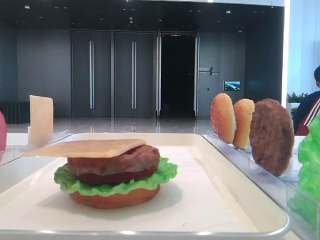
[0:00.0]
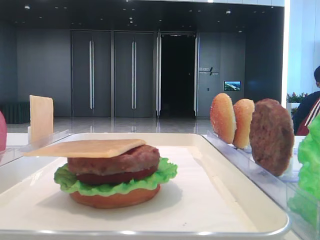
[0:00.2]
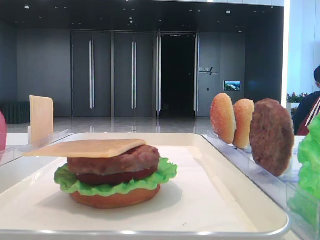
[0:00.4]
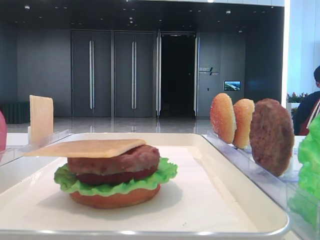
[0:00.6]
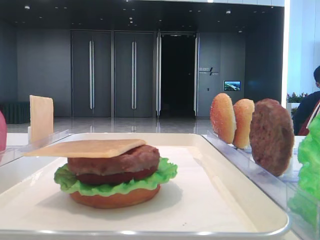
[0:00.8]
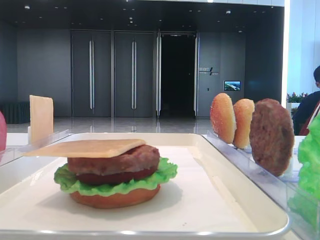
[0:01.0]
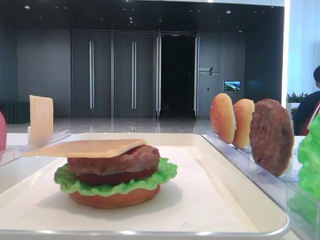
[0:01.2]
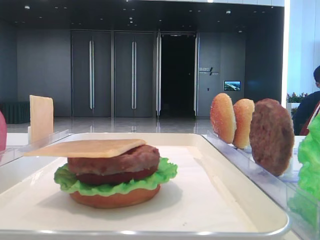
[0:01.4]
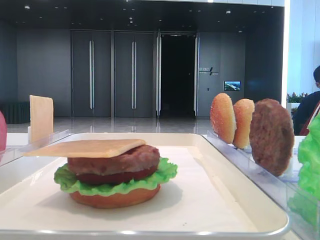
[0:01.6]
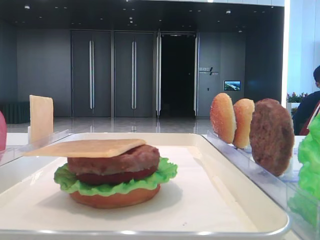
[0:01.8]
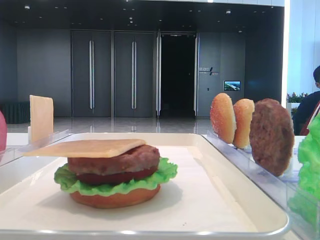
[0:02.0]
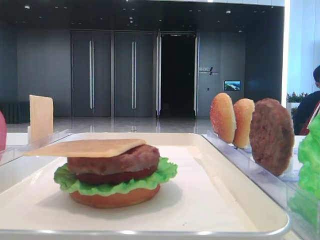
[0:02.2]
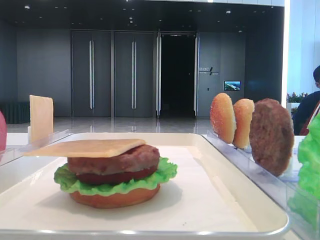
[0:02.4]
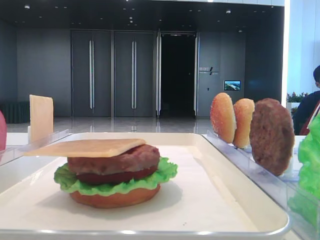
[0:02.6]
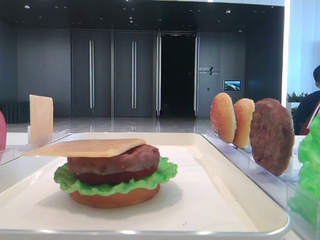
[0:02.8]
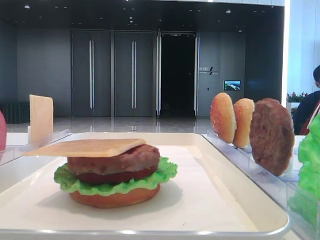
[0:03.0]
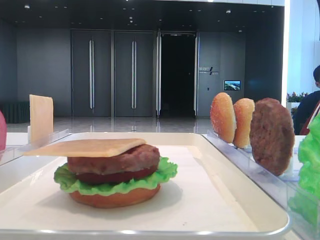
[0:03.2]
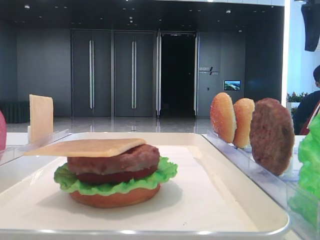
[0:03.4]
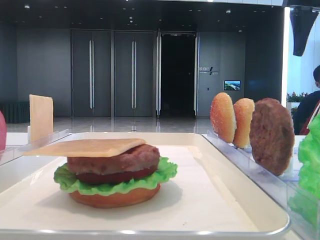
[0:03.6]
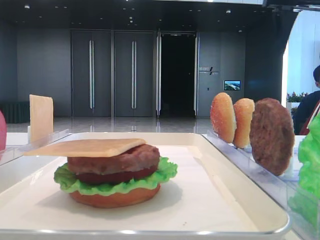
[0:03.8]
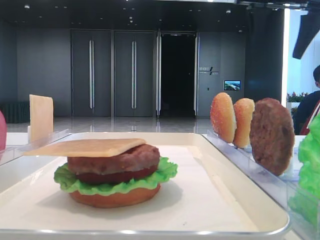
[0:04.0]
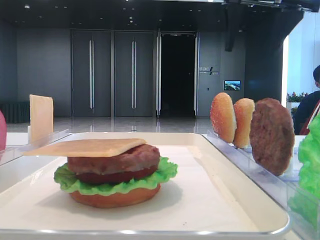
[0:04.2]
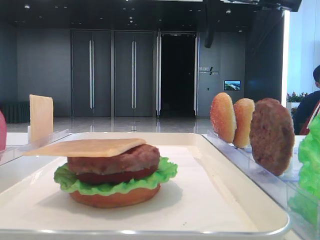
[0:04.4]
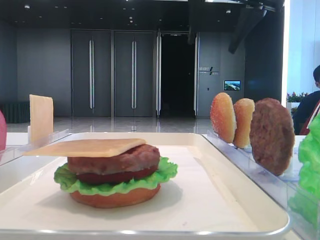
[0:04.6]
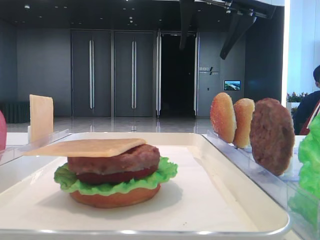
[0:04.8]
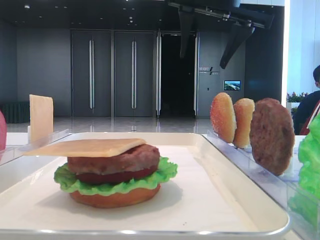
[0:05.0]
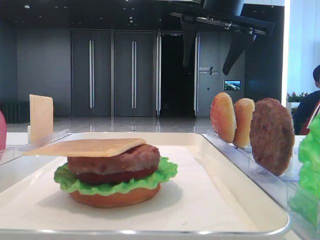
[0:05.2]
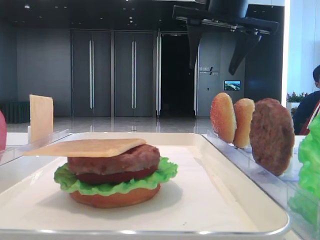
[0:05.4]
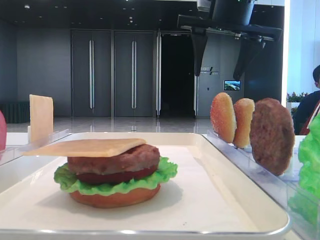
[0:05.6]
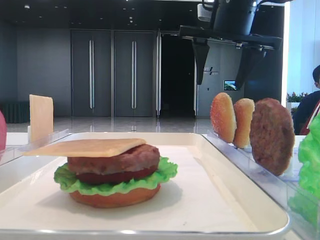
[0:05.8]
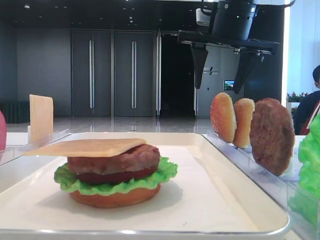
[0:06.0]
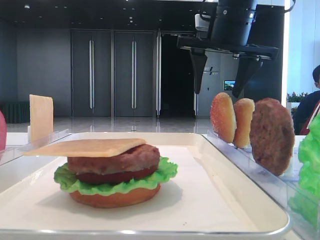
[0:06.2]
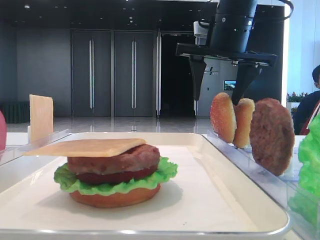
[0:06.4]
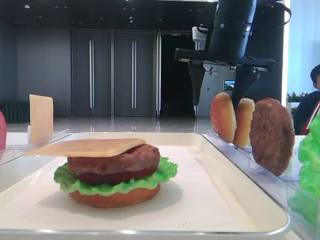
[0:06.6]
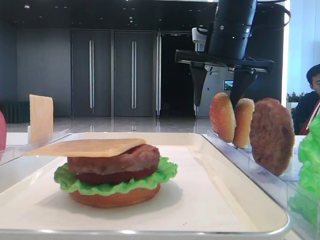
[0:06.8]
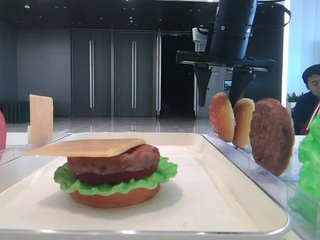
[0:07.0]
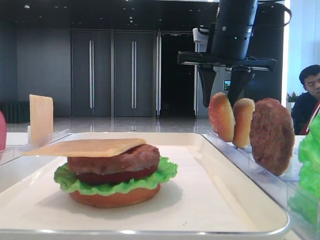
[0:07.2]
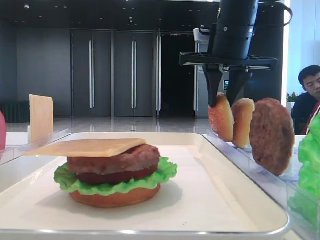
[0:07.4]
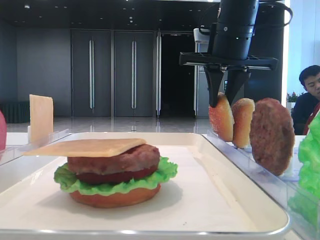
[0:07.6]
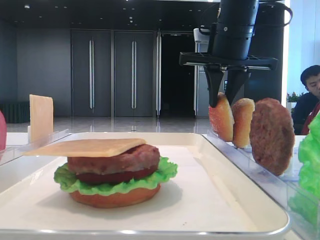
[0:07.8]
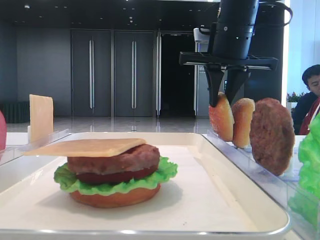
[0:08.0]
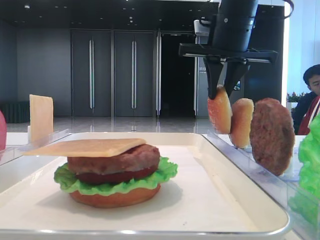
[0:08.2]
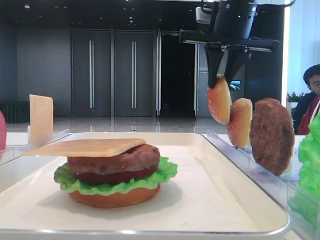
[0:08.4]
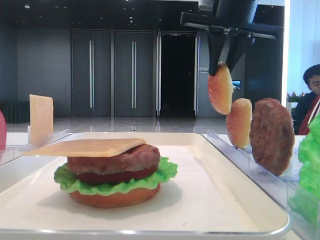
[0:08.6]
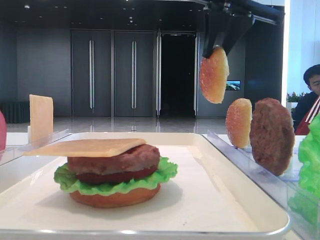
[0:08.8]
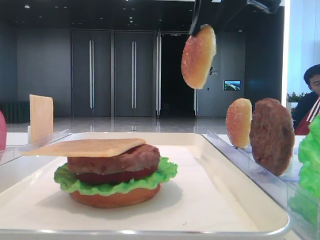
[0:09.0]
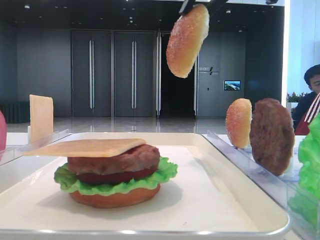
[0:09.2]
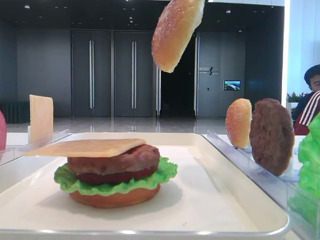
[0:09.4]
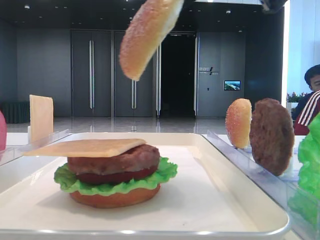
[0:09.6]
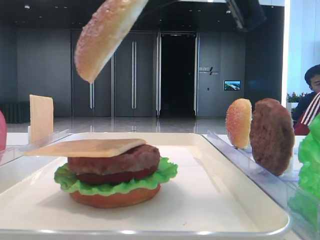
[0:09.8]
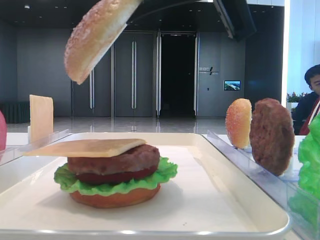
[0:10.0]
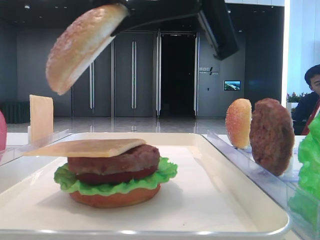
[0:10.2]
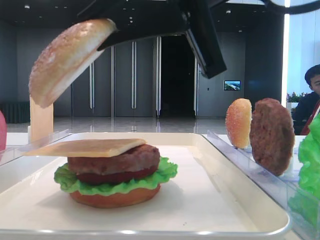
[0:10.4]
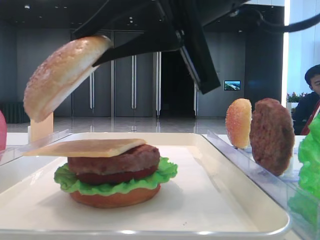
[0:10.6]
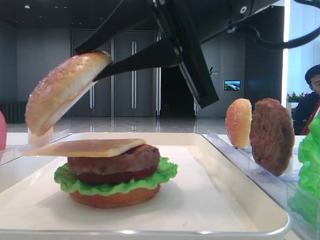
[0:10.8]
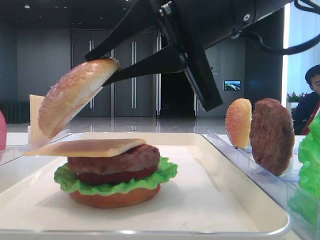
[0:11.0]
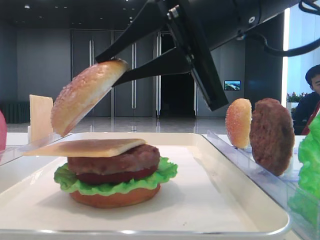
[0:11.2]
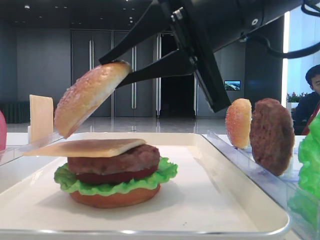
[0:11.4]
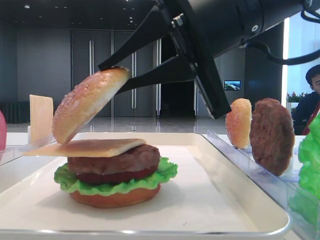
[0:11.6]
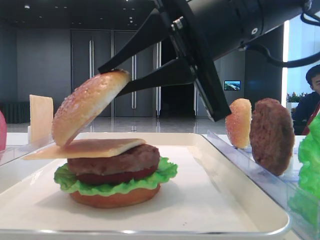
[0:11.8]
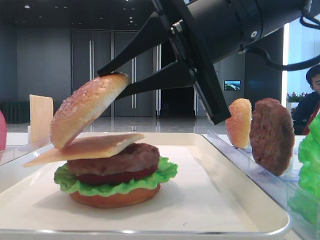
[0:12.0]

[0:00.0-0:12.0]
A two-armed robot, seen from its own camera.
Step, 0:00.0 to 0:07.8: Pick up the top bread slice with the right hand.
0:03.0 to 0:04.4: The right gripper is displaced to the left by approximately 20 cm.
0:04.4 to 0:06.0: The right gripper heads downward, covering roughly 5 cm.
0:06.0 to 0:07.6: The right gripper closes up.
0:07.6 to 0:09.0: The right gripper goes about 10 cm upward and backward.
0:09.0 to 0:10.4: The right gripper heads backward and downward, covering about 15 cm.
0:10.4 to 0:12.0: The grippers stay close to where they were, moving slightly.

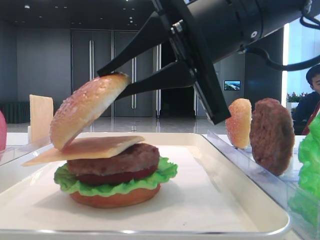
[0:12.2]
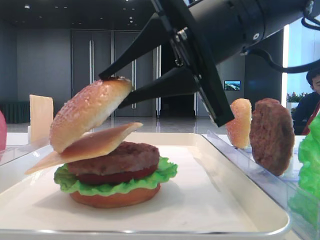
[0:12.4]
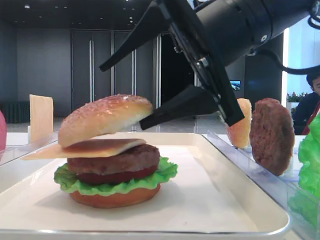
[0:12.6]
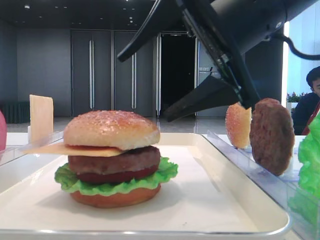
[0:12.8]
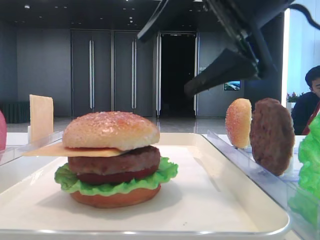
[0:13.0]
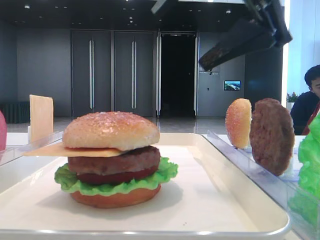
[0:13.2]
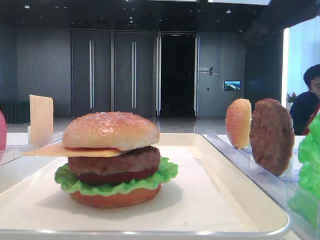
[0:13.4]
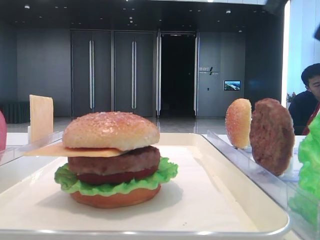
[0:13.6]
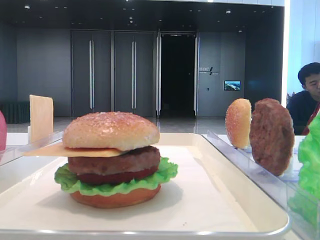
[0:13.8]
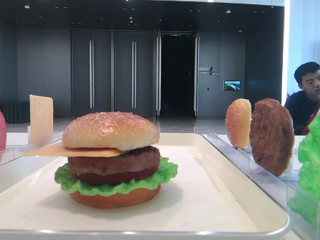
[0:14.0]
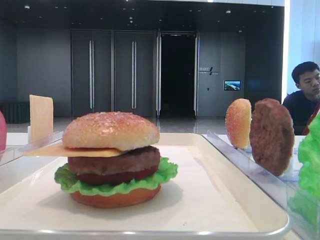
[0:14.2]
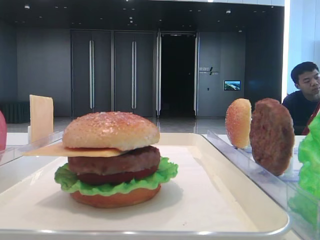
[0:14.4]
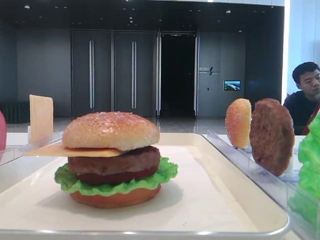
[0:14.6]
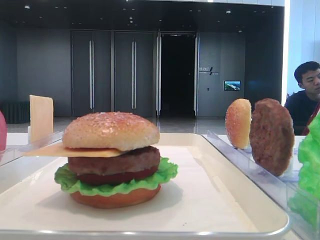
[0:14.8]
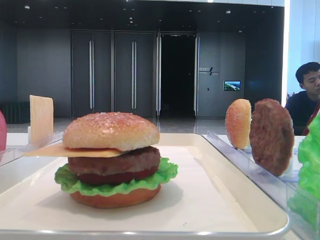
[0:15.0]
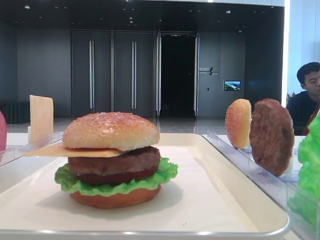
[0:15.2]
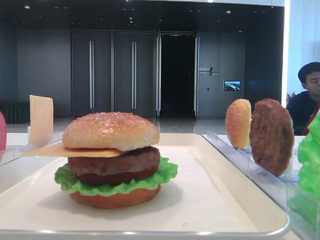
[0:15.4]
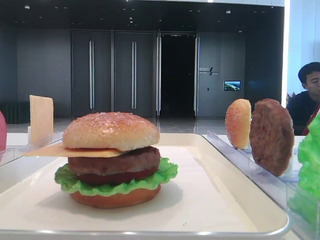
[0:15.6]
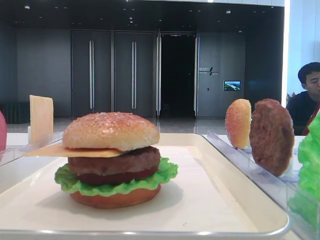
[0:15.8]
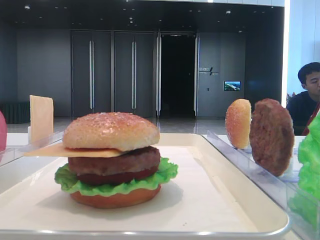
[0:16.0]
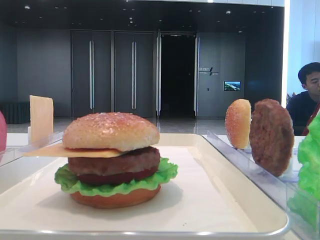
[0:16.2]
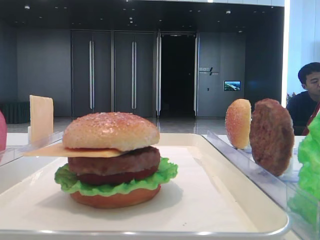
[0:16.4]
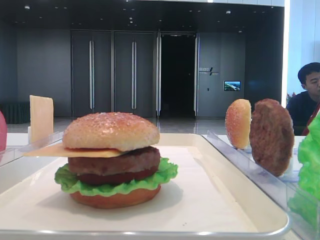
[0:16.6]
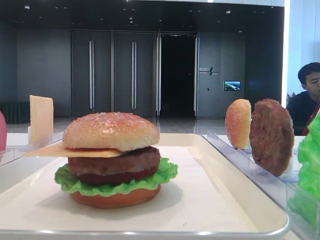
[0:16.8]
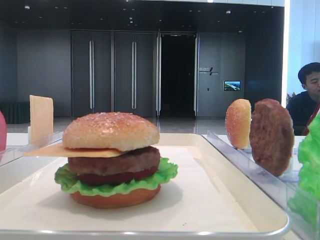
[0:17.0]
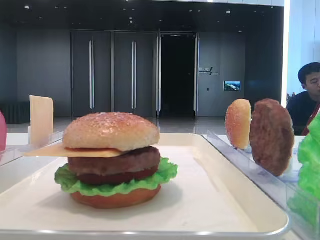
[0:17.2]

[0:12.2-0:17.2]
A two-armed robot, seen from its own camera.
0:12.2 to 0:13.8: The right gripper travels to the right and upward by roughly 20 cm, and opens its fingers.

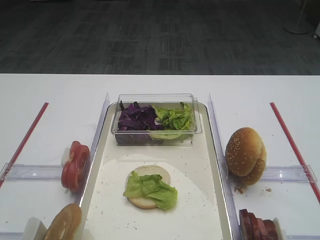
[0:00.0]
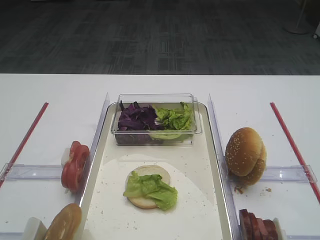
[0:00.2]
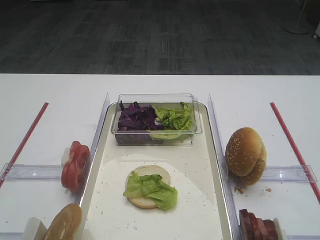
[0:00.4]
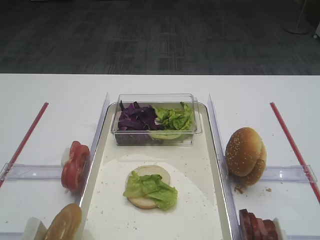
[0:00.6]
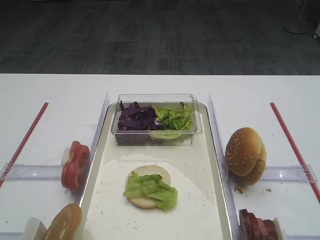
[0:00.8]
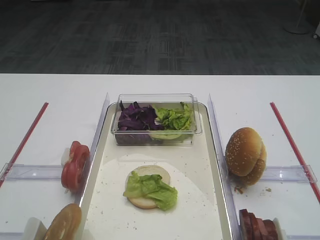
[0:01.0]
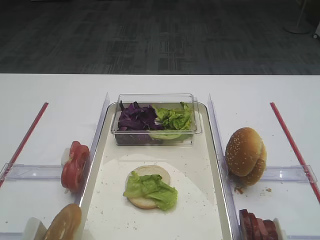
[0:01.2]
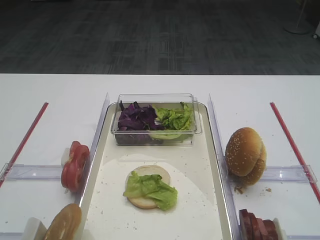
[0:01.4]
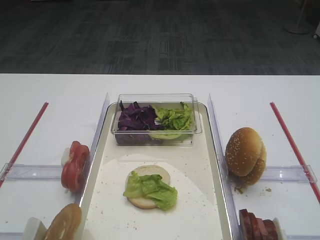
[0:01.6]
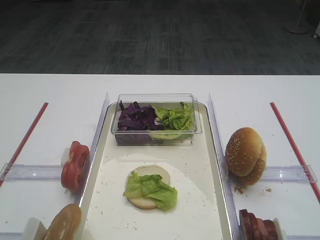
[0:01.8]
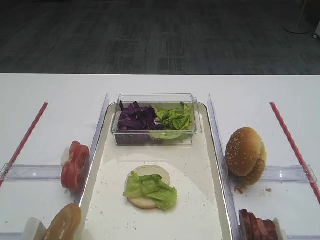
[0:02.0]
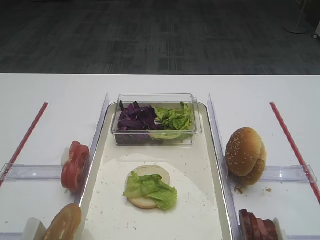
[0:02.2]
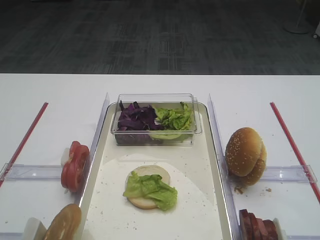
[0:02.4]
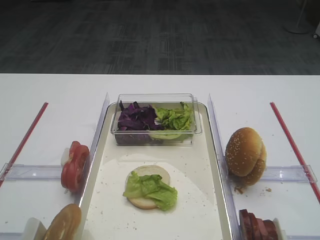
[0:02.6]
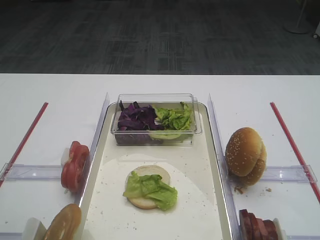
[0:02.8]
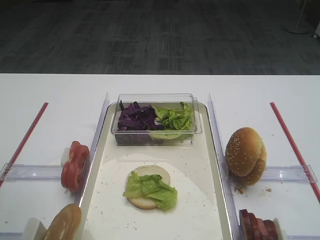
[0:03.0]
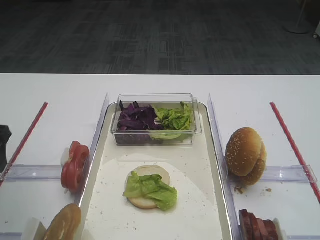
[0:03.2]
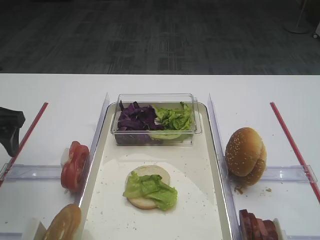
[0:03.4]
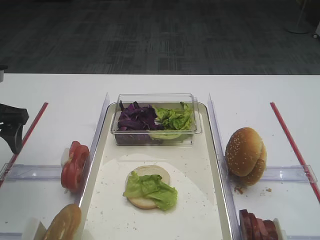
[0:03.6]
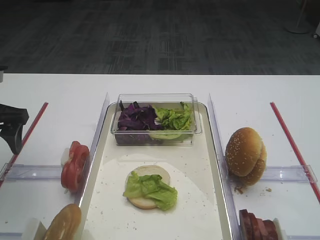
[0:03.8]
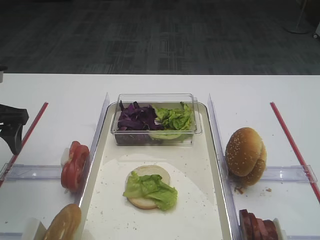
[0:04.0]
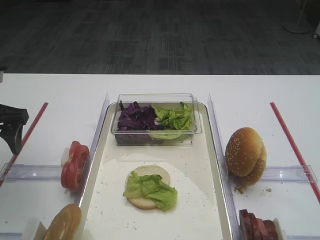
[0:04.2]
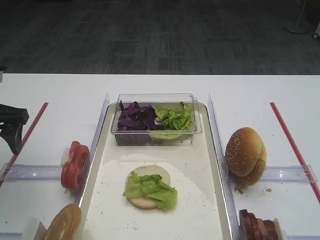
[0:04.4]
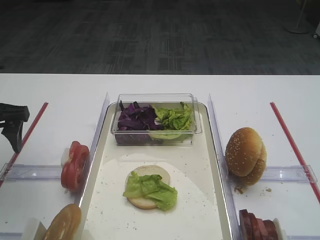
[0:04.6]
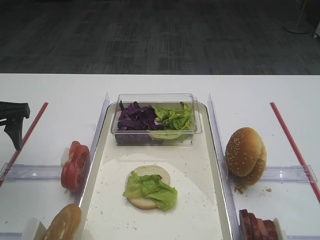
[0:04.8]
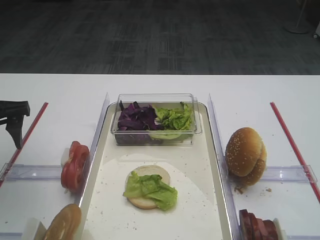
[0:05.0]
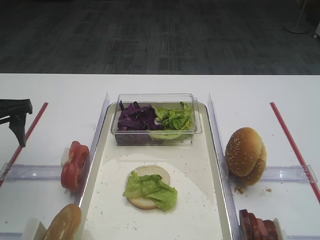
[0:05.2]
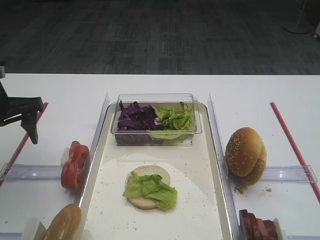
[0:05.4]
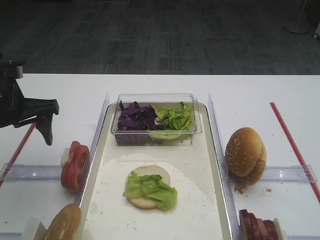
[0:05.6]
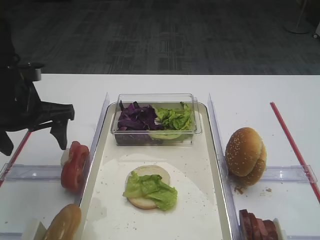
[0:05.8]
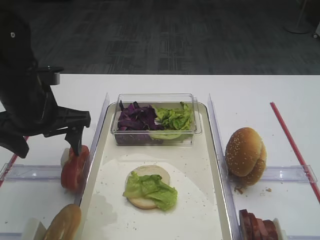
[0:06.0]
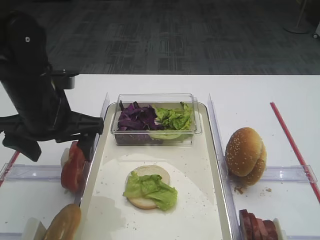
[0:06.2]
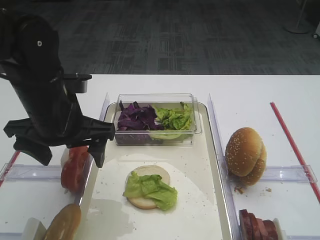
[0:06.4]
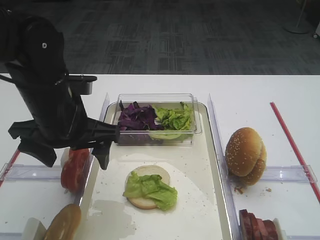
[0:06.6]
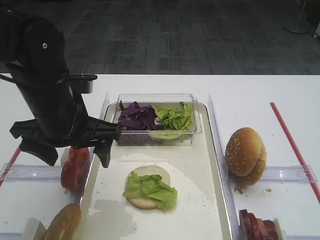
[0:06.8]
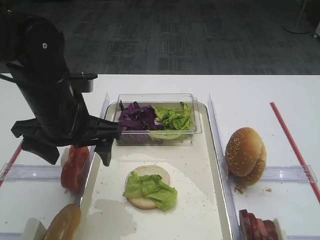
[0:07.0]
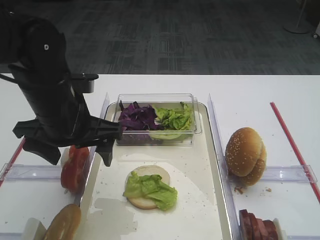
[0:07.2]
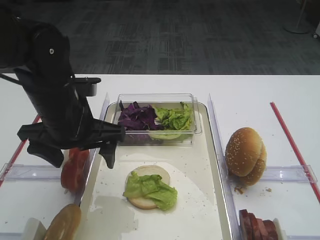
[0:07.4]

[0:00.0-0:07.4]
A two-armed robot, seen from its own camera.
0:03.0 to 0:04.4: The left gripper travels forward by approximately 10 cm.
0:04.4 to 0:06.0: The left gripper travels to the right by approximately 10 cm.
0:06.0 to 0:07.4: The left gripper is displaced to the right by roughly 5 cm.
